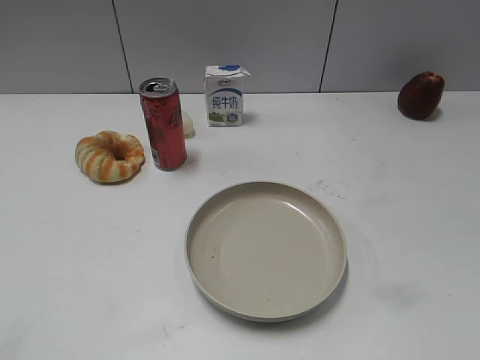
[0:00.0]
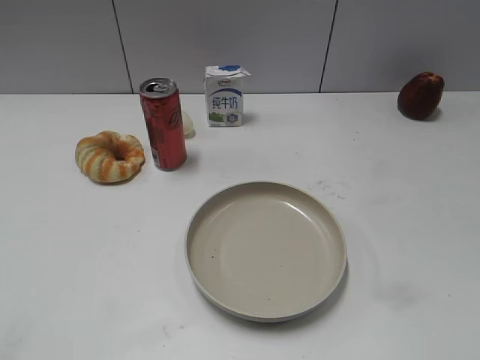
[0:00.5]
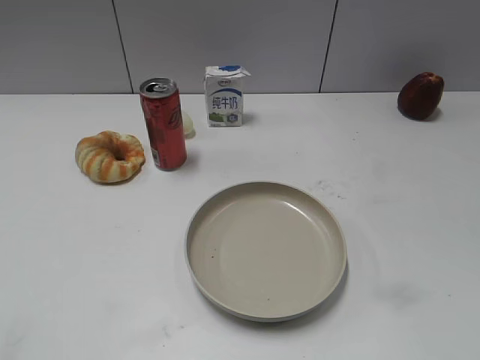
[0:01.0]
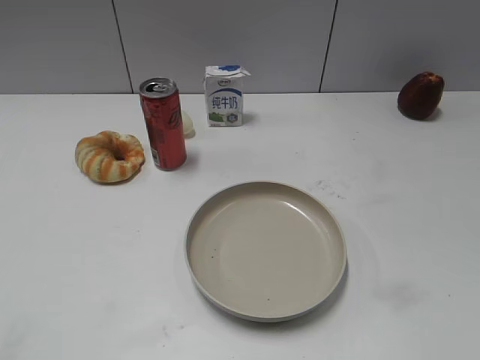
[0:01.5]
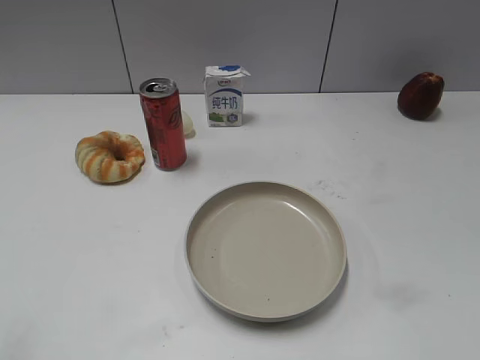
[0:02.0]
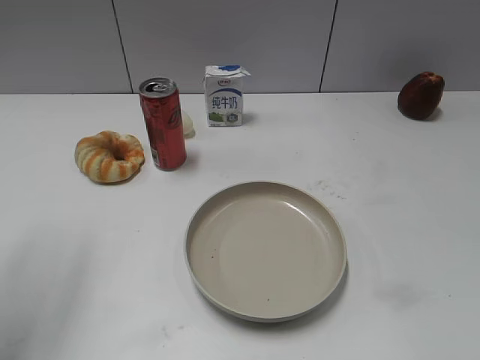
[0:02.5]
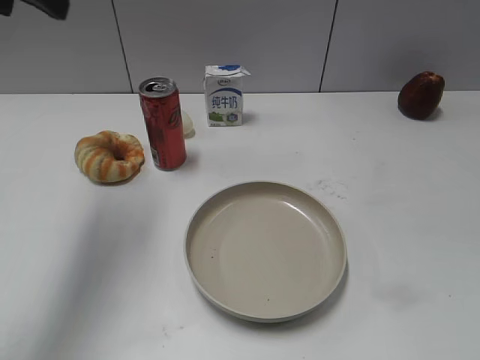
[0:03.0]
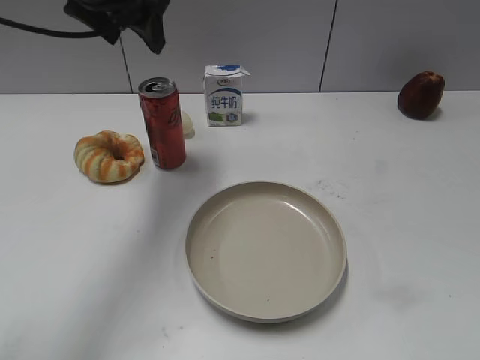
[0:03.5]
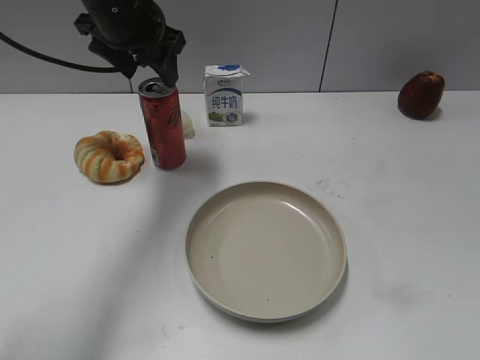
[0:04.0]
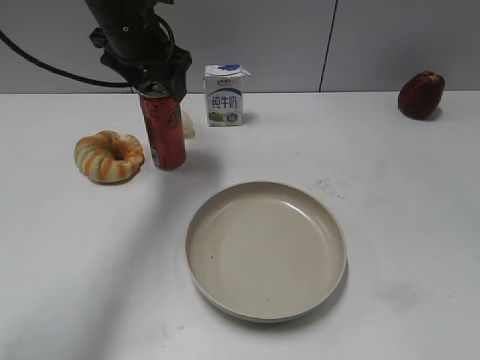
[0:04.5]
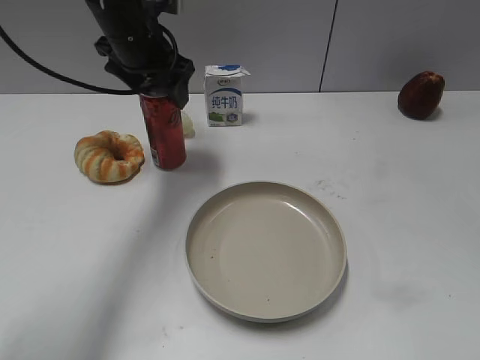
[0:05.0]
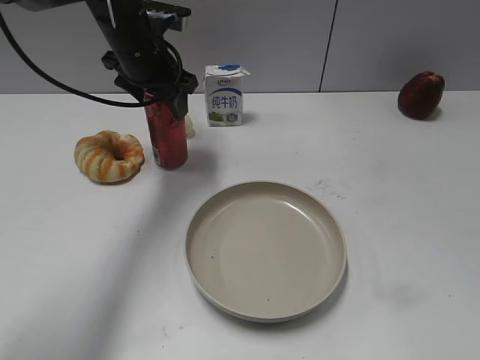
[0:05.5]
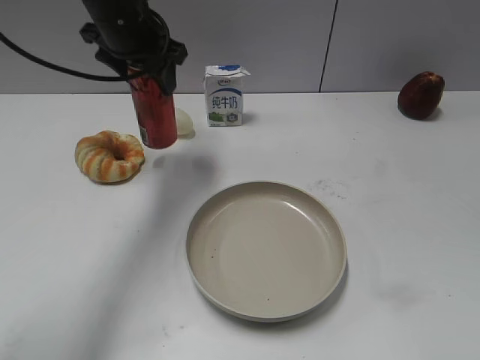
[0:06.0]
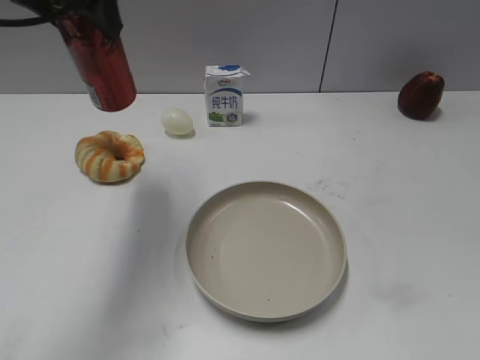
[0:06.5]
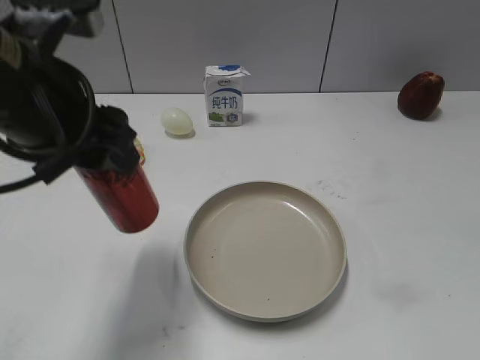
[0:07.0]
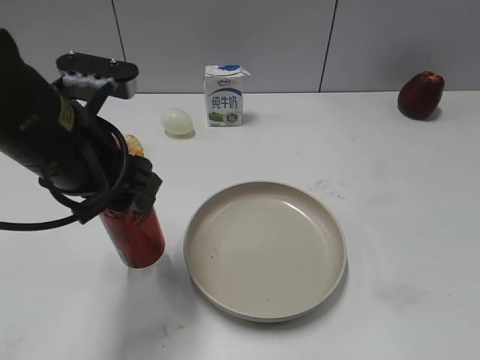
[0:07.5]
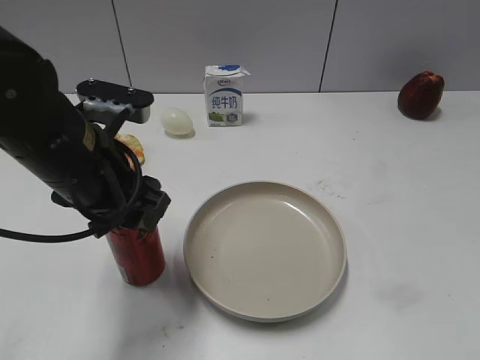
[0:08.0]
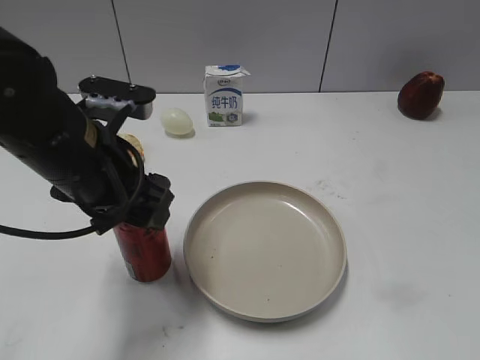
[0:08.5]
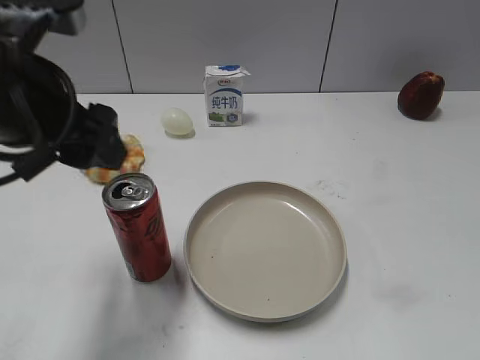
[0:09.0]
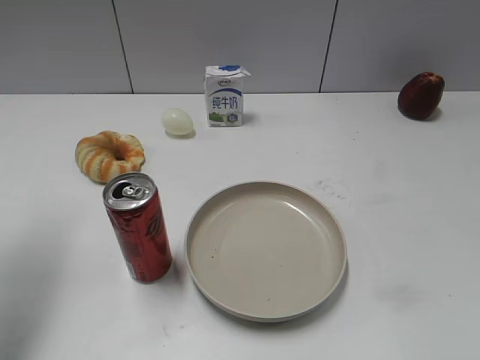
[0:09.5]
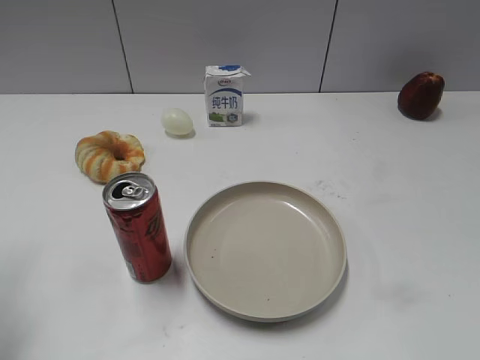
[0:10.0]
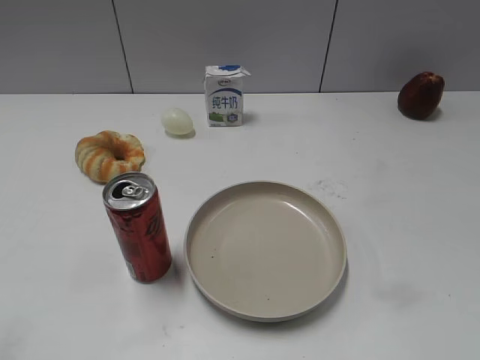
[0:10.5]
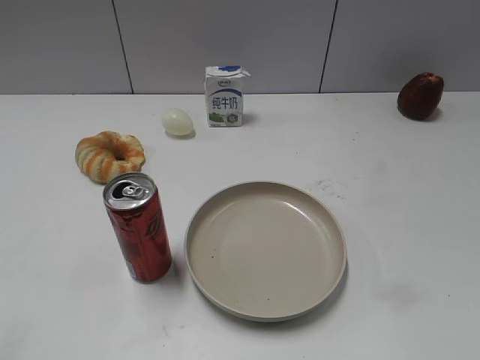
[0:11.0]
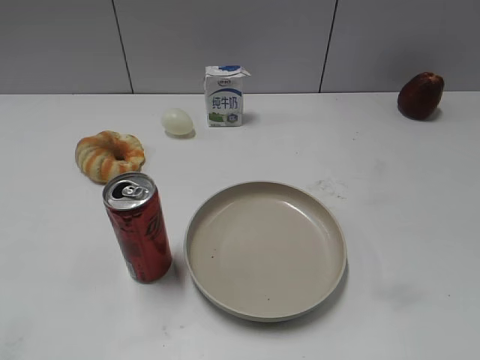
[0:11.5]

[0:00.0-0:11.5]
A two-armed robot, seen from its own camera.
Step, 0:01.5 to 0:05.0: Grasp the cola with left gripper.
Step, 0:05.5 to 0:08.5: Place the cola on the table with left gripper.
0:02.0 to 0:04.0: The left gripper heads forward and to the right, covering some 40 cm.
0:04.0 to 0:06.0: The left gripper closes up.
0:06.0 to 0:07.5: The left gripper heads backward, covering approximately 20 cm.
0:07.5 to 0:09.5: The left gripper is displaced to the left and upward by some 15 cm, and opens.
0:09.5 to 0:11.5: The left gripper goes approximately 25 cm backward, and closes its fingers.
